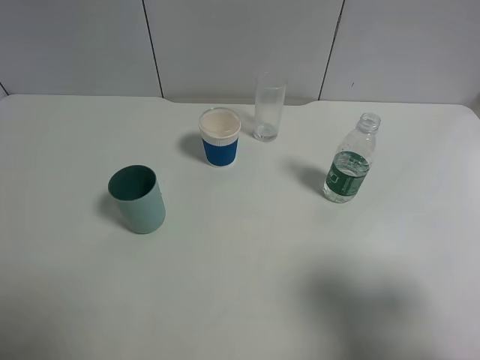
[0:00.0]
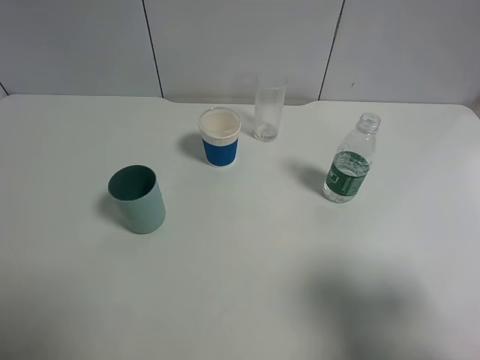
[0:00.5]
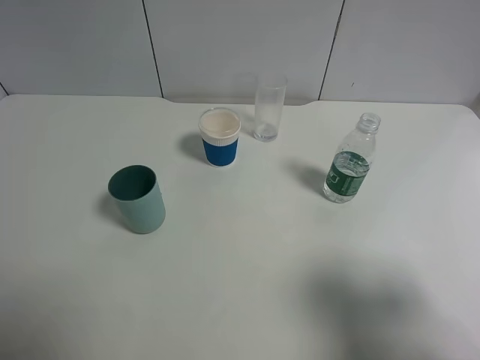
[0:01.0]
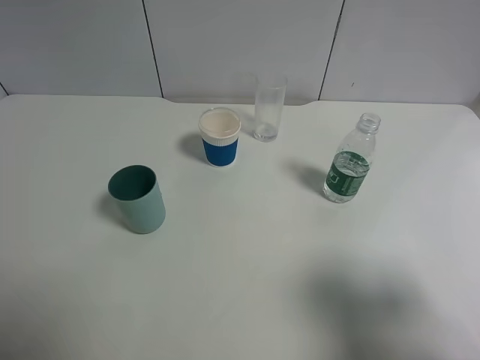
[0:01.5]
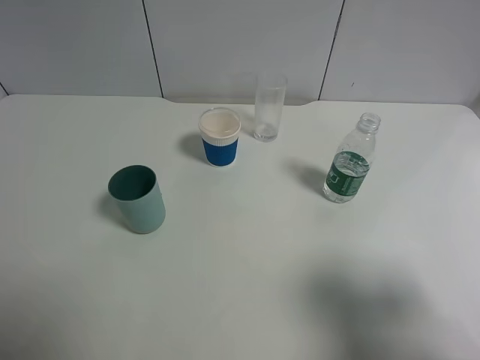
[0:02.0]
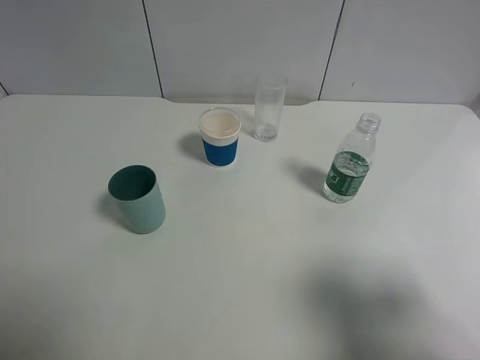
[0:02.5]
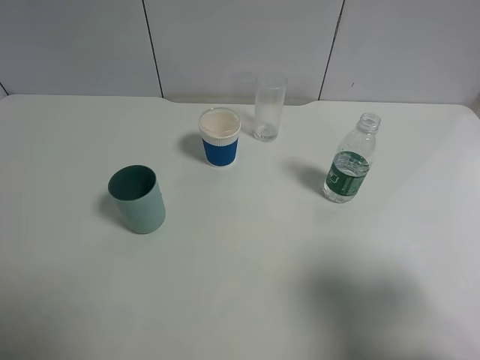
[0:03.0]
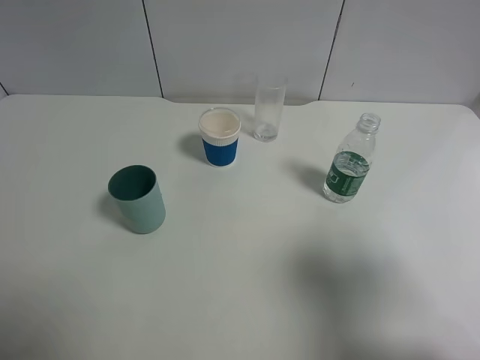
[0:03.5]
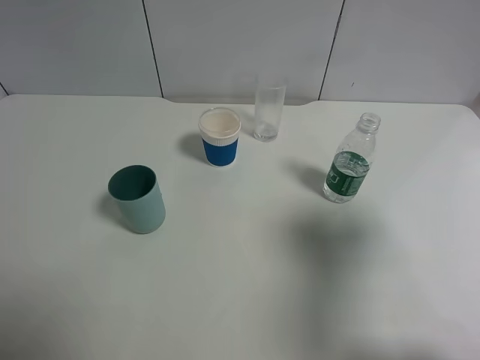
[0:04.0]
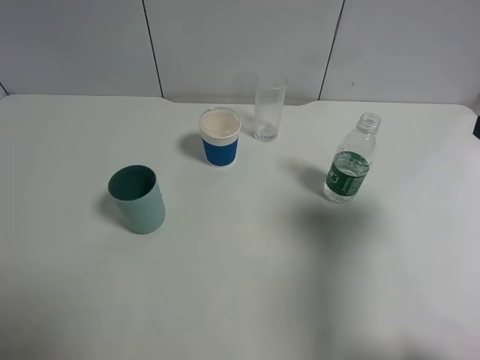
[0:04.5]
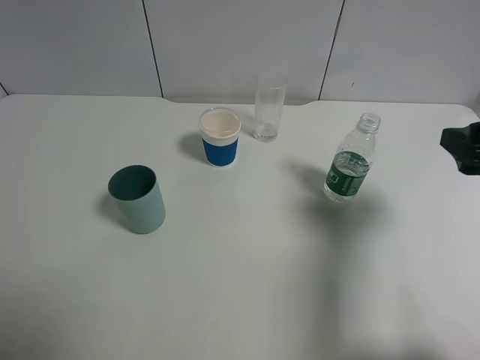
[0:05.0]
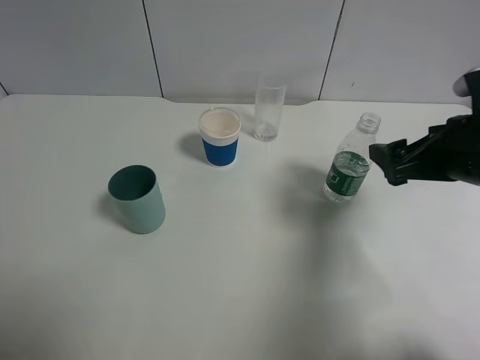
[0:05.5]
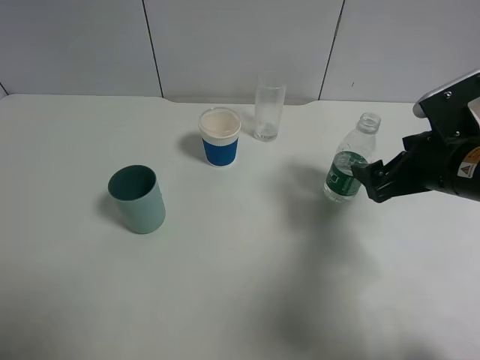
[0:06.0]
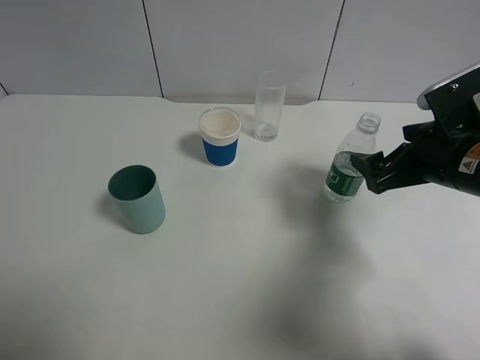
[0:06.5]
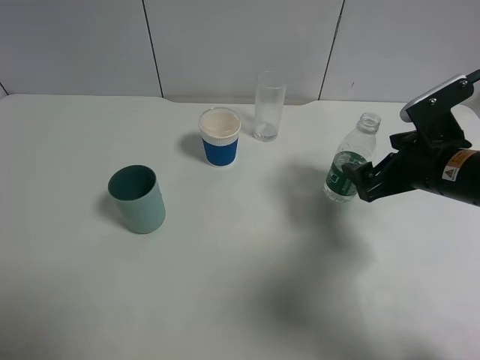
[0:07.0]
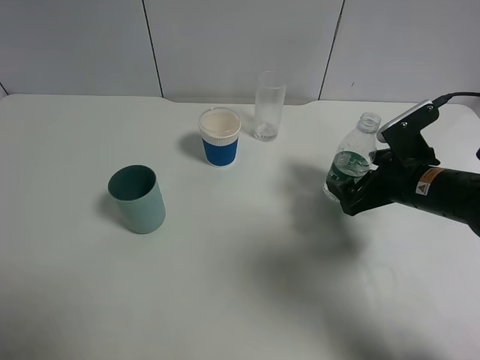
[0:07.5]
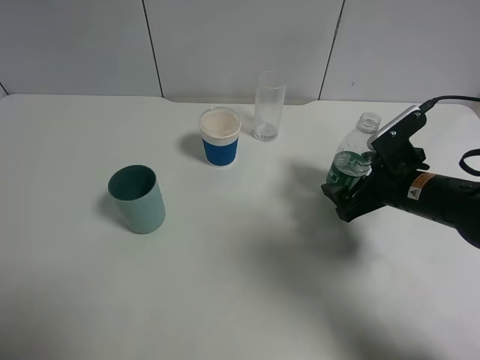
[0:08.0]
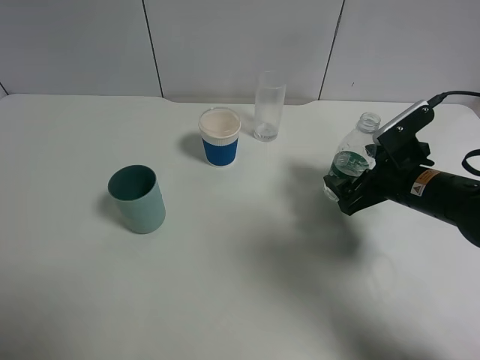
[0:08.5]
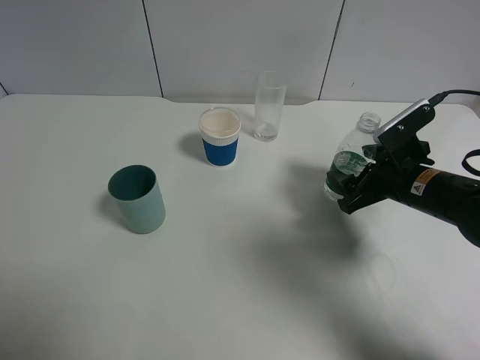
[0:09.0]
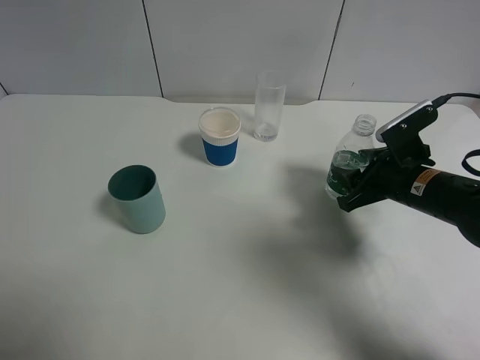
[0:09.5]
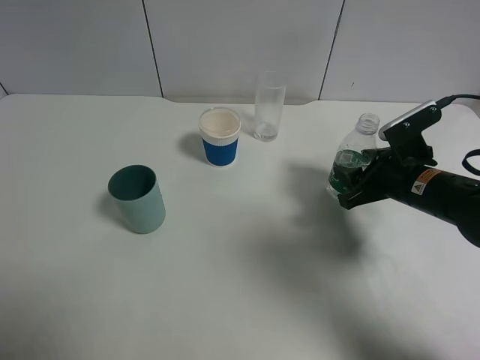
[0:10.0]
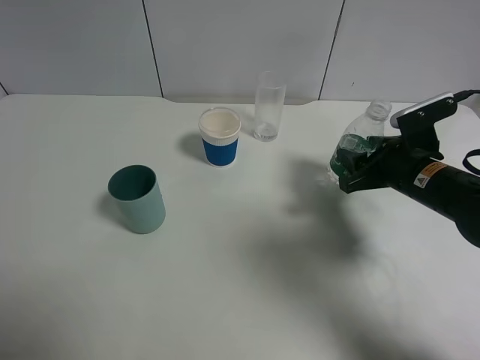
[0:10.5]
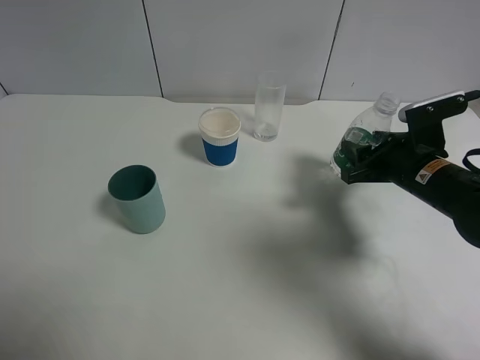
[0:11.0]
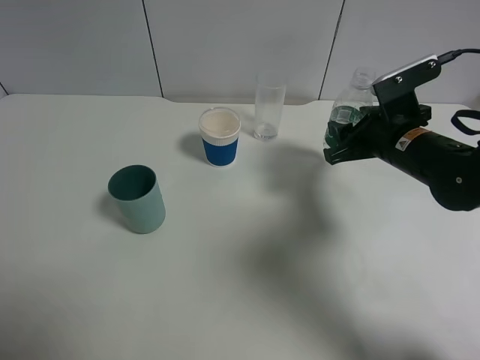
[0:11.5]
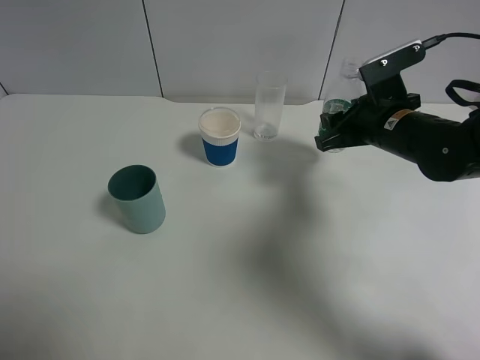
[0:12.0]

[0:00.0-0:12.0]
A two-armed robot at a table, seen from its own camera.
Task of the whole recording: use a gripper to hold the bottle of the drink and pour it into a random cup.
Step, 0:00.0 to 0:09.5: Grasp the mineral water bottle with the right gripper.
0:00.0 to 0:02.0: The two grippers keep their place.
0:02.0 to 0:04.0: The right gripper travels forward by approximately 10 cm.
0:04.0 to 0:06.0: The right gripper travels forward, downward and to the left by some 20 cm.
0:06.0 to 0:08.0: The right gripper heads downward, covering roughly 5 cm.
0:08.0 to 0:10.0: The right gripper closes up.
0:10.0 to 0:12.0: The right gripper moves upward and forward, some 5 cm.

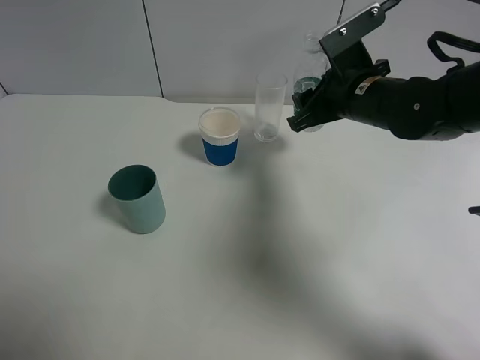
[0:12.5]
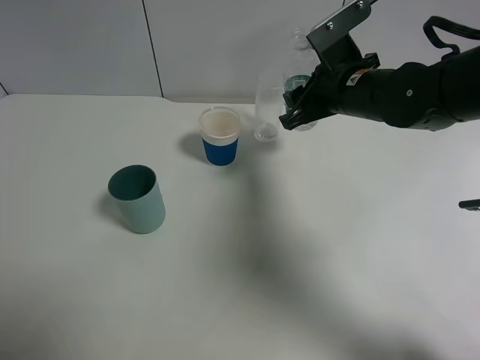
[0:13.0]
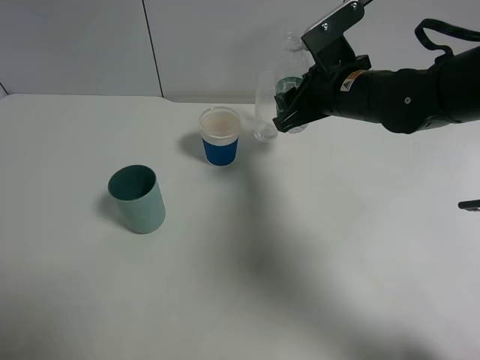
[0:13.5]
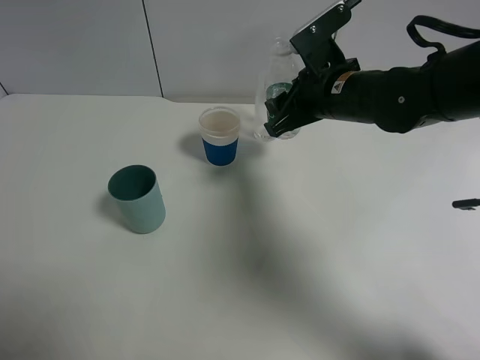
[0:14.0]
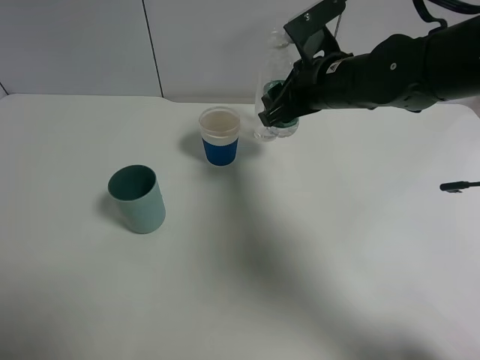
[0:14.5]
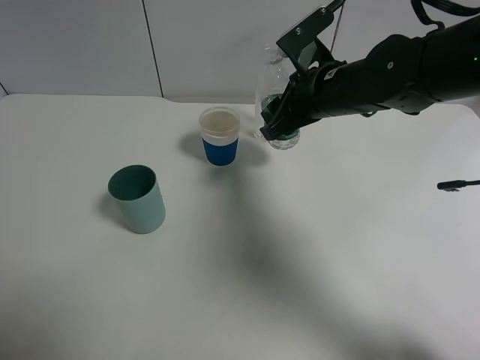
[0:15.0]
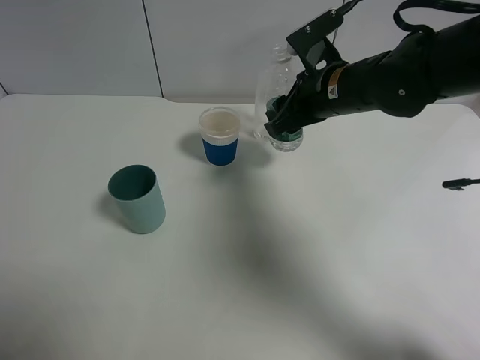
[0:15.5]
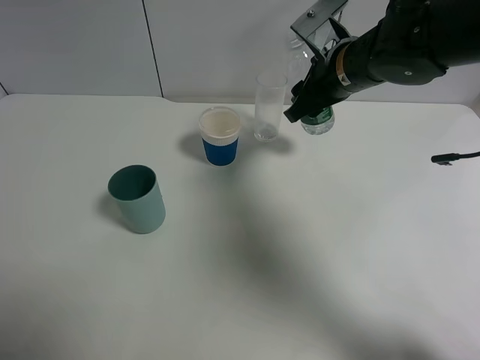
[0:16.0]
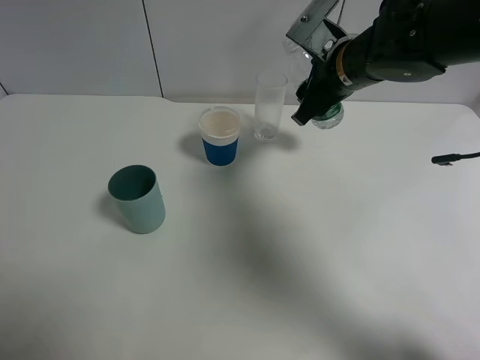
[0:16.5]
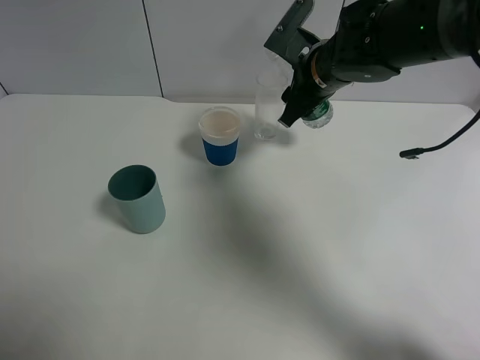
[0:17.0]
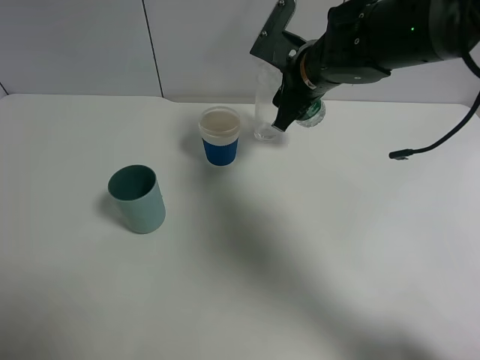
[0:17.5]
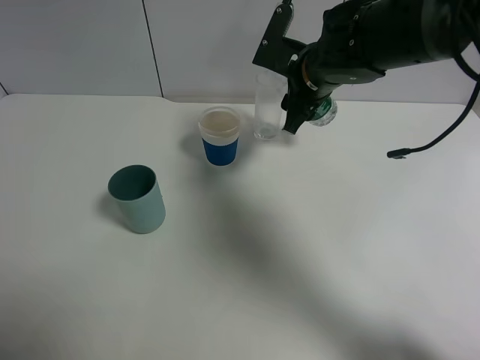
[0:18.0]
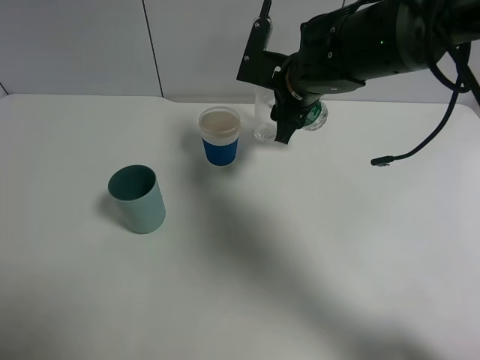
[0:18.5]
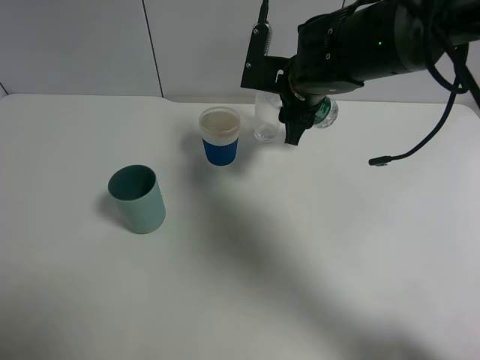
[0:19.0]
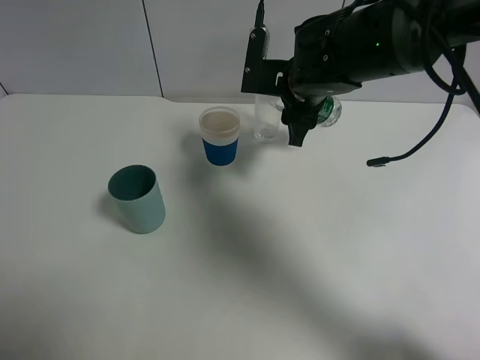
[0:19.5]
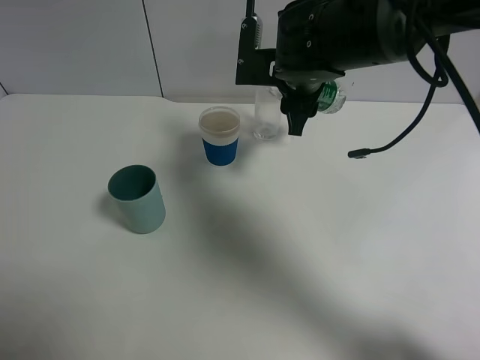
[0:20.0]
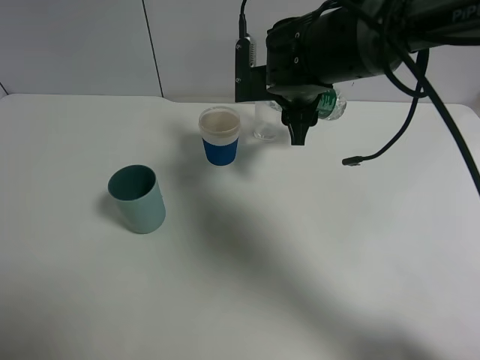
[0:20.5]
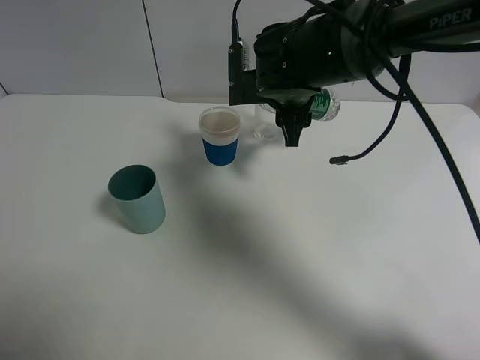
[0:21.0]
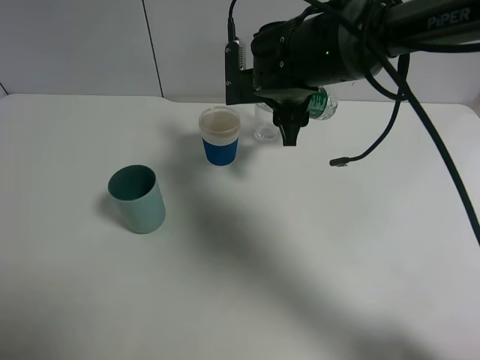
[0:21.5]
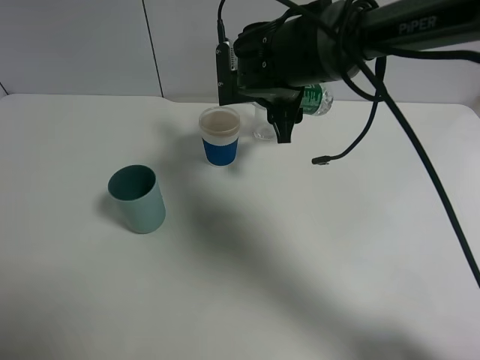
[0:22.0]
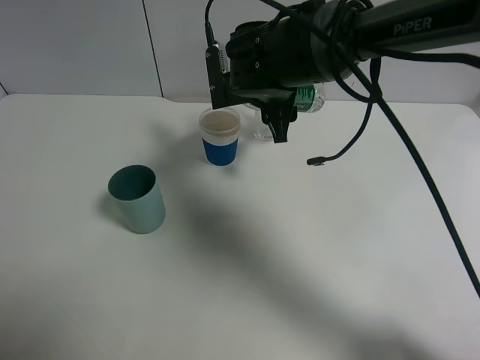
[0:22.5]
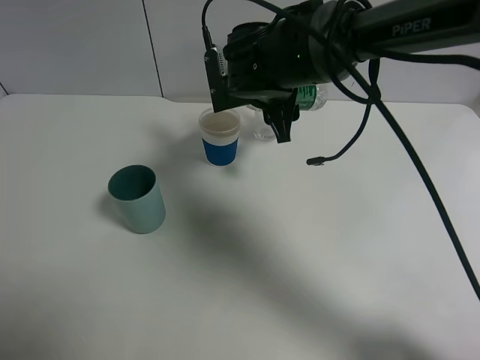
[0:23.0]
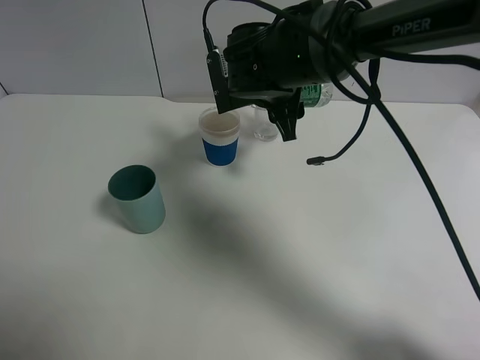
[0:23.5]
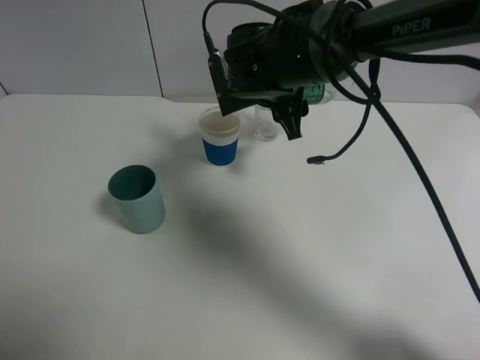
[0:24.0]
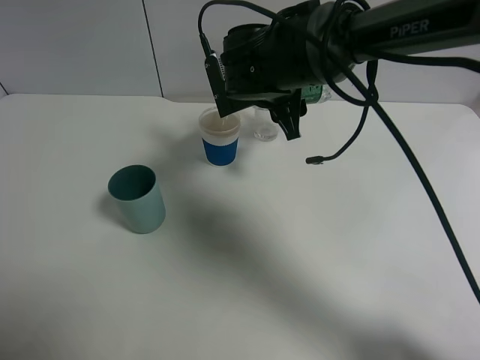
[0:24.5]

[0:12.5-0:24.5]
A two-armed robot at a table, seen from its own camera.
Task of the whole recording: use a gripper to hold the bottle of the drink and pour it into a random cup.
0:12.5 to 0:14.5: The grippers move only a little.
0:16.5 to 0:18.5: The right gripper goes about 5 cm to the left.
0:20.5 to 0:24.5: The grippers move only a little.

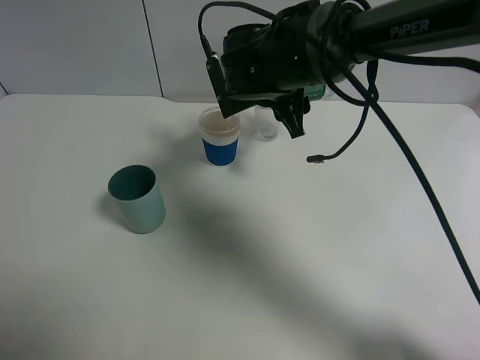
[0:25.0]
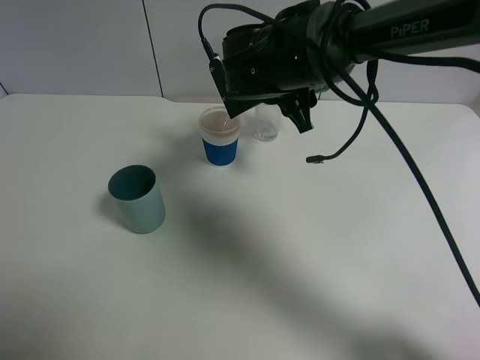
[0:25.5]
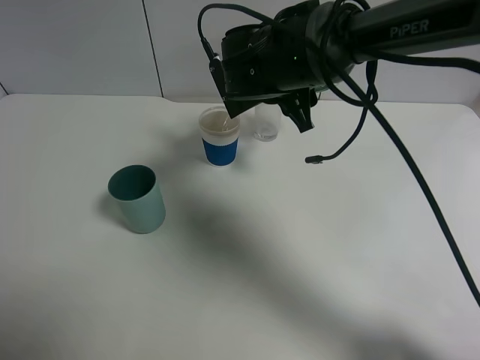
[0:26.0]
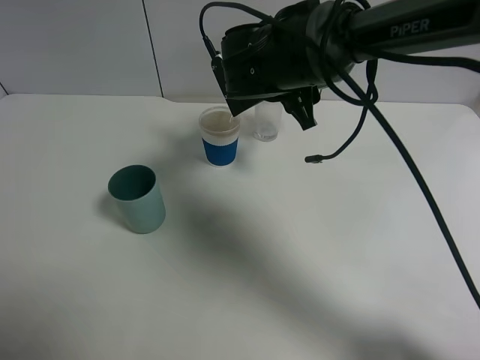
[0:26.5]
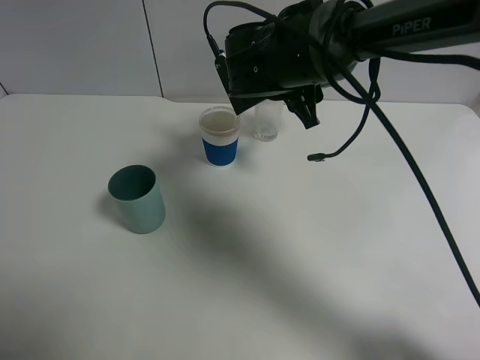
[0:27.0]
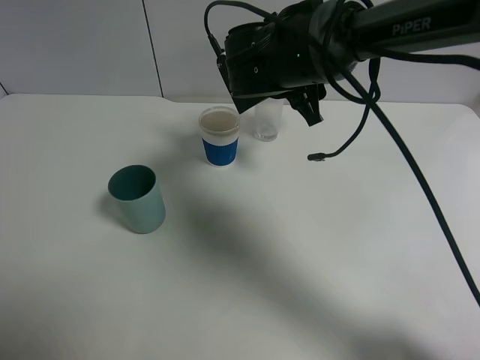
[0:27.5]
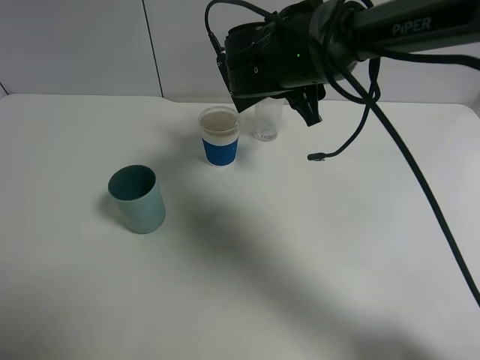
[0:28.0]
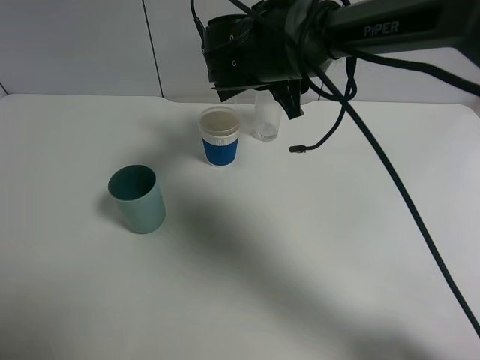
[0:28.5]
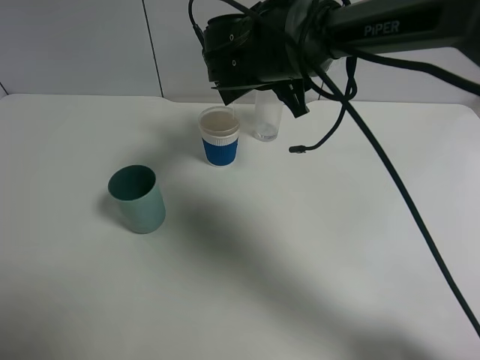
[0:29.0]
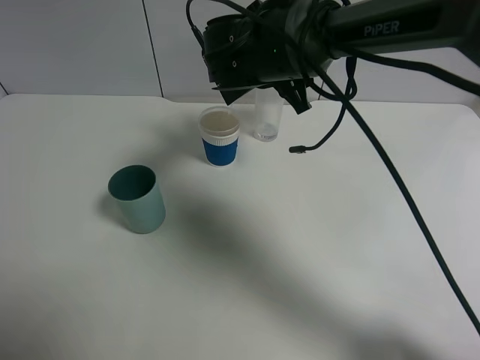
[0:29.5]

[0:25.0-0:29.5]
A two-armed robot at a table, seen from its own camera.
Task of the whole recording: use a gripper to hold the bottle of the drink and pour it into a random cup.
0:25.0 to 0:29.5: The grippers move only a little.
